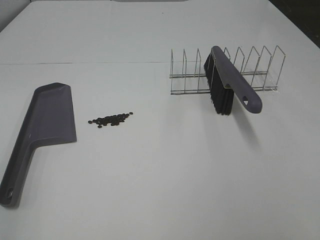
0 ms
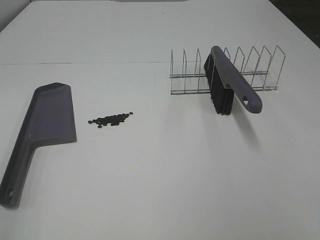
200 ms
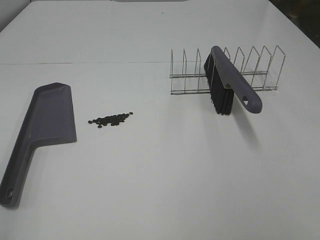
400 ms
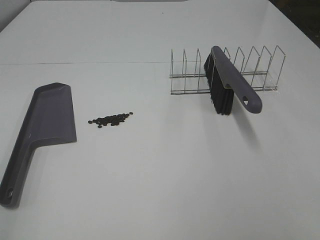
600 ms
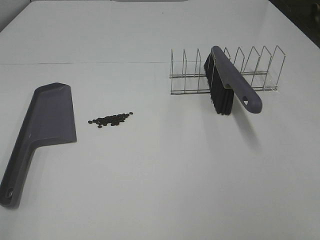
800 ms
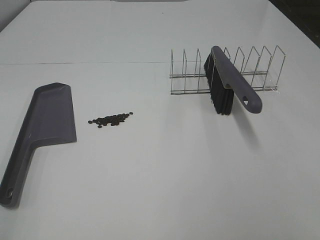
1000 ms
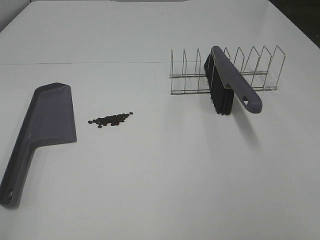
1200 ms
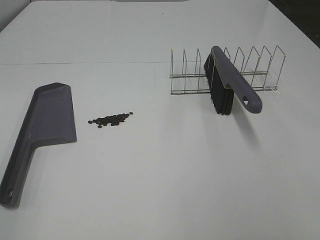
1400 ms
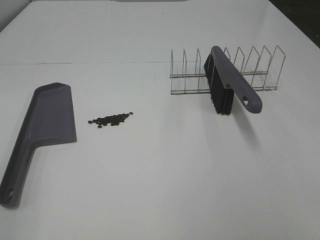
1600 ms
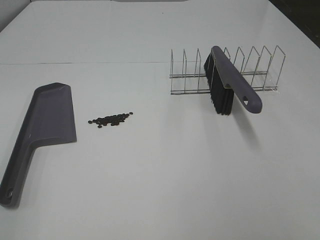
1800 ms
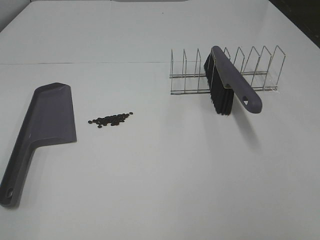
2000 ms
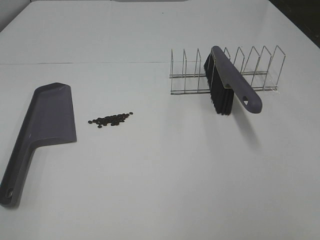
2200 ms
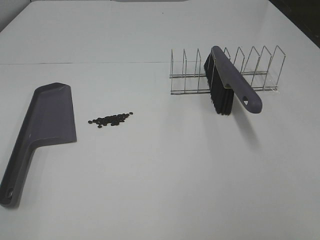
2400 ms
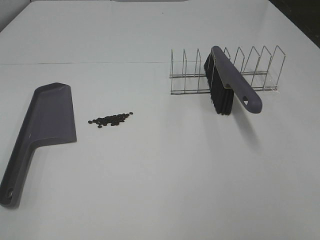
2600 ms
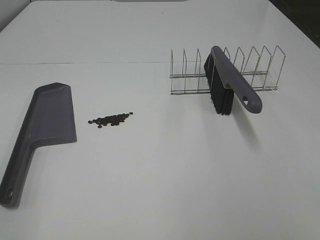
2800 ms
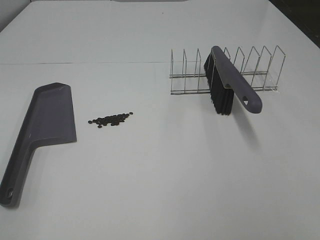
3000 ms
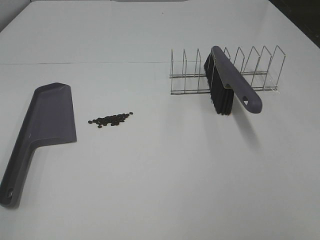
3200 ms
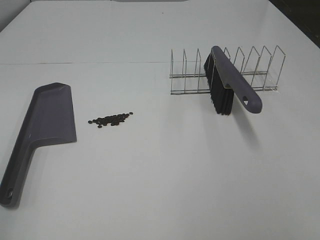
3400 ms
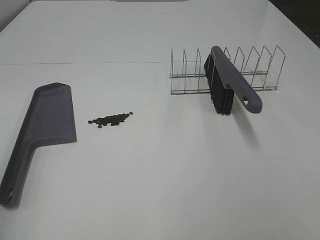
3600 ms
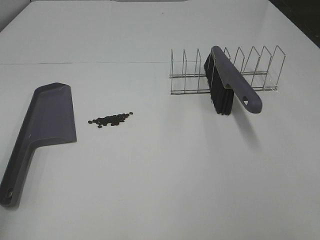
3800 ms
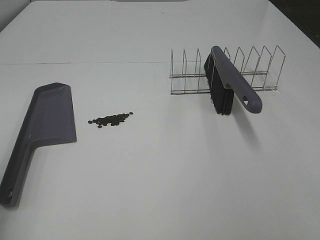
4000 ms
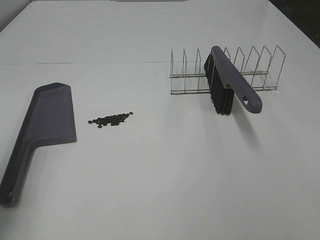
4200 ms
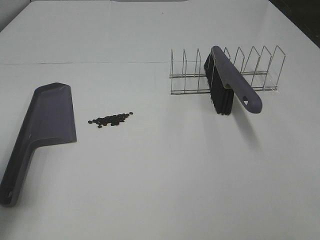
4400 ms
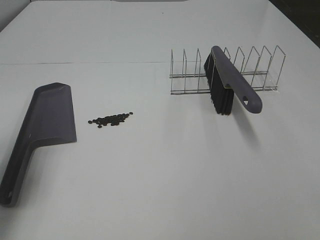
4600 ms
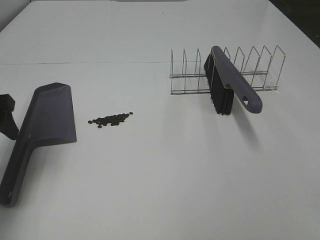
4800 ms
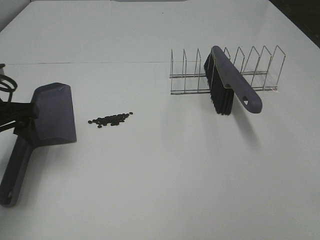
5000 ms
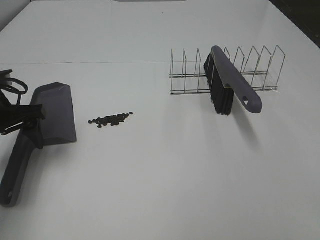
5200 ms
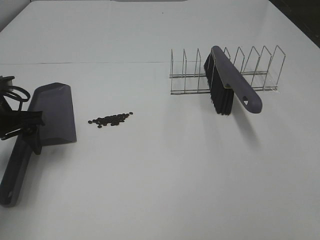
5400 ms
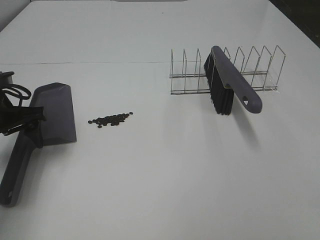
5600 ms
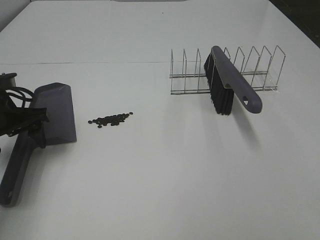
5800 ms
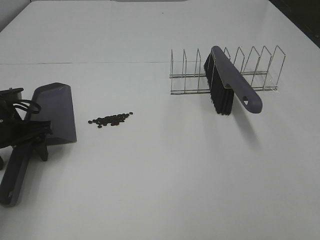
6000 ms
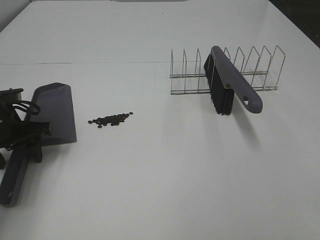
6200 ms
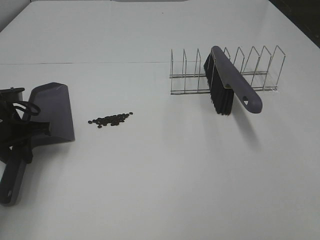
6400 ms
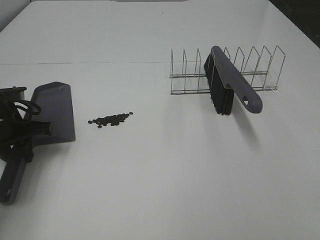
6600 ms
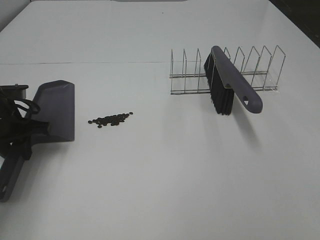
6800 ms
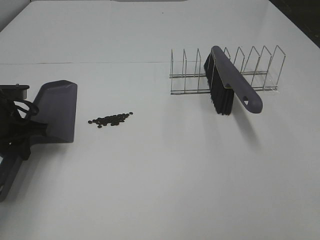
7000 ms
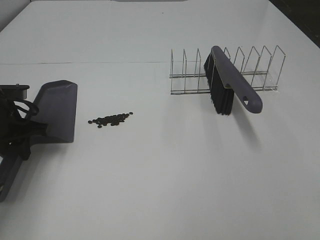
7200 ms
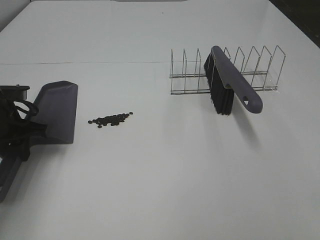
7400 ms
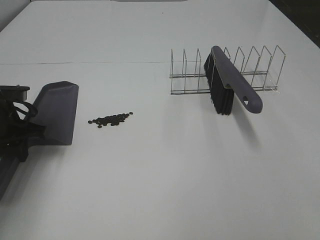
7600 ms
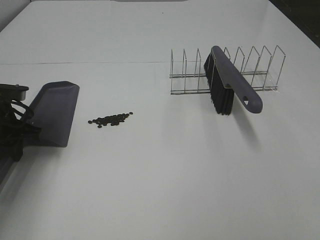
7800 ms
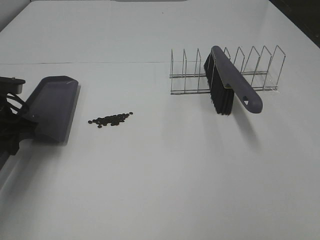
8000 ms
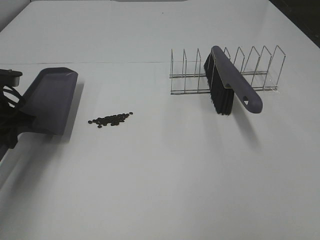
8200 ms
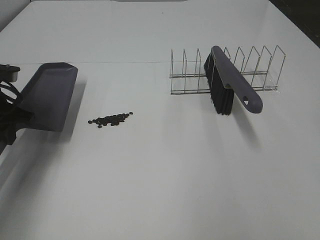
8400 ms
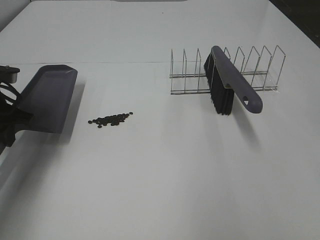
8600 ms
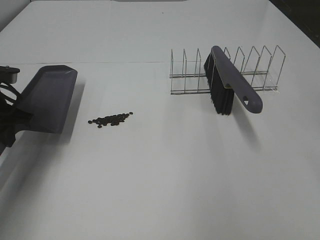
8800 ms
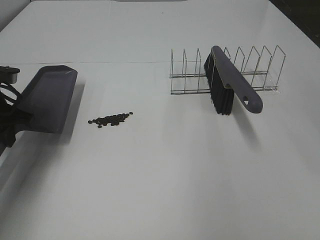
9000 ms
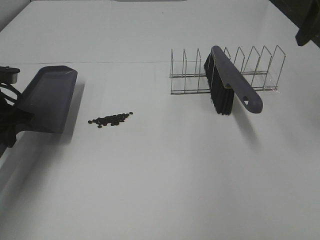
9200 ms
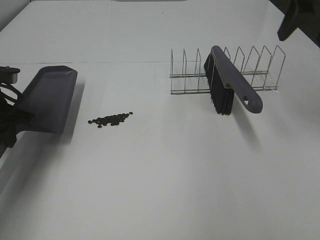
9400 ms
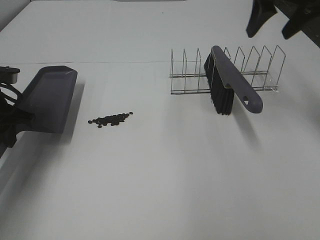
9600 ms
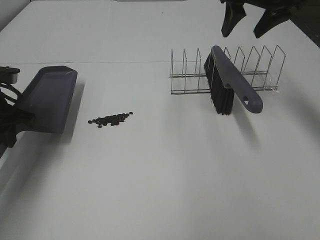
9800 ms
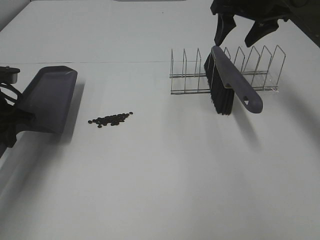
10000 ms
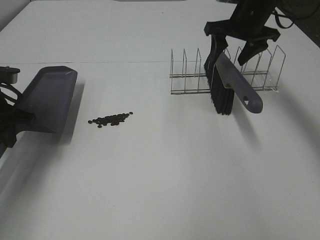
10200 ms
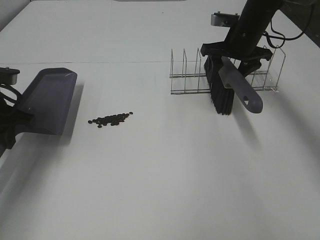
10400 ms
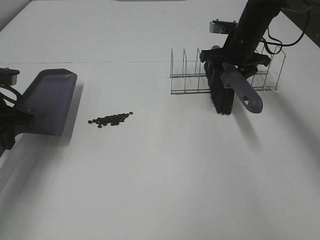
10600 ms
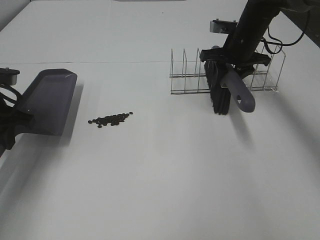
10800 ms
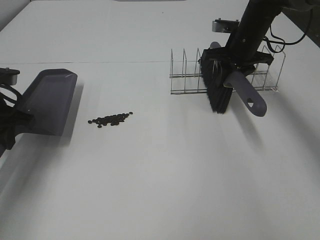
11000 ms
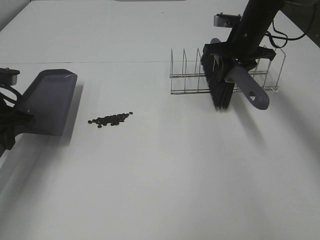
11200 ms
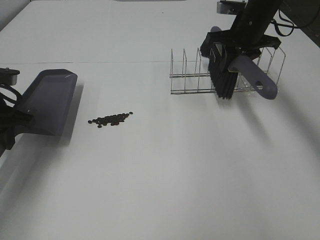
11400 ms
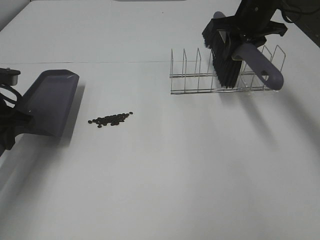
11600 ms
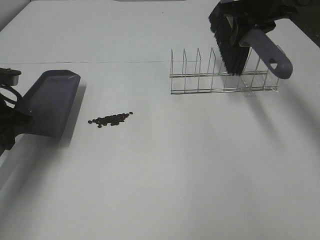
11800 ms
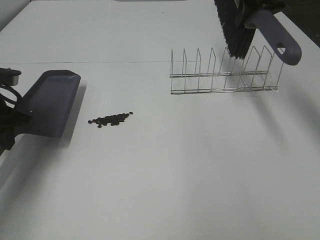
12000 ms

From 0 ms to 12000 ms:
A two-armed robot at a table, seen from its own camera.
Task of the whole recording: Sweep Coffee Bean.
Step, from 0 ms to 6800 ms: Left hand: grab the dustpan.
Step, from 7600 ms to 11400 ms: Right hand:grab the broom.
From 0 ms to 1600 ms: Neither gripper changes place.
From 1600 ms to 3000 ms: Both grippers stay put.
From 3000 ms to 4400 ms: The left gripper moves forward, roughly 20 cm.
From 4400 ms to 6000 ms: The left gripper travels forward and downward by about 20 cm.
From 6000 ms to 7600 ms: The left gripper closes up.
From 9000 ms to 10400 ms: The right gripper shifts some 30 cm forward and downward.
From 10400 ms to 12000 ms: The right gripper heads upward, covering roughly 15 cm, and closes its fingers.

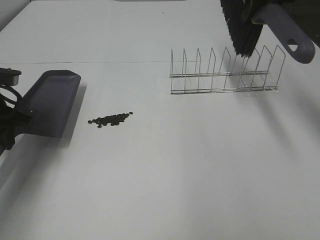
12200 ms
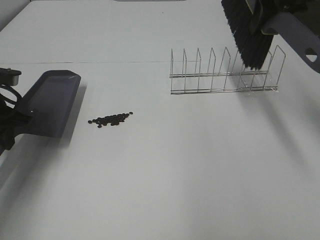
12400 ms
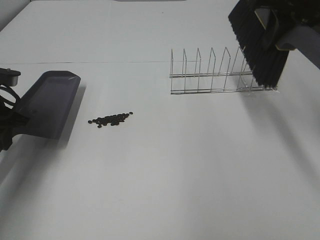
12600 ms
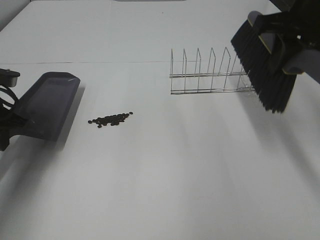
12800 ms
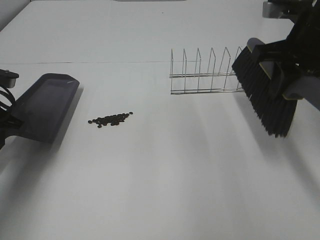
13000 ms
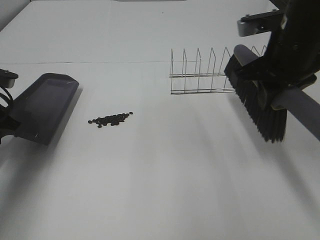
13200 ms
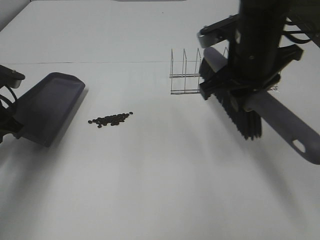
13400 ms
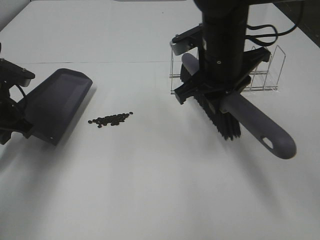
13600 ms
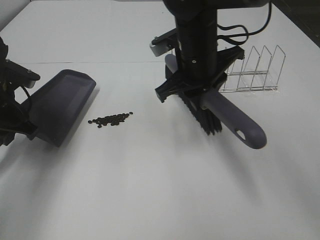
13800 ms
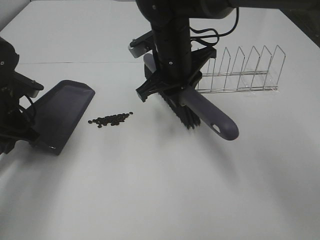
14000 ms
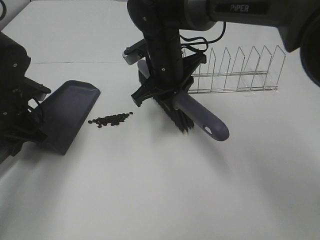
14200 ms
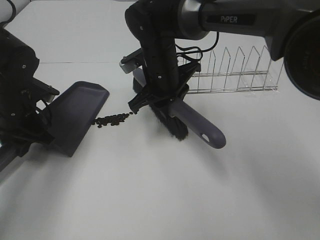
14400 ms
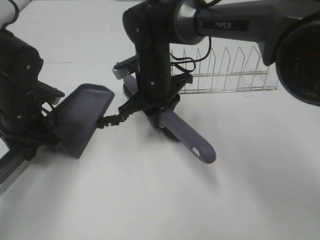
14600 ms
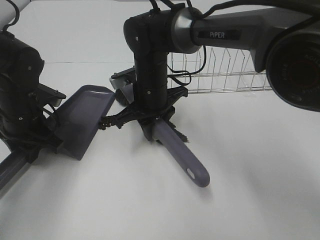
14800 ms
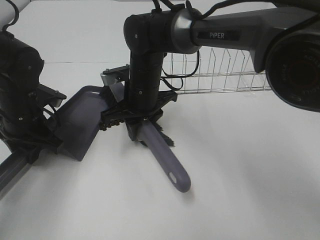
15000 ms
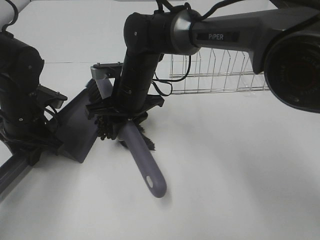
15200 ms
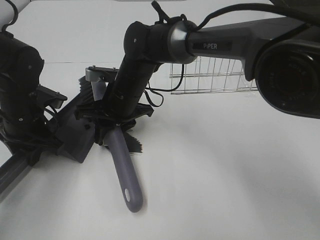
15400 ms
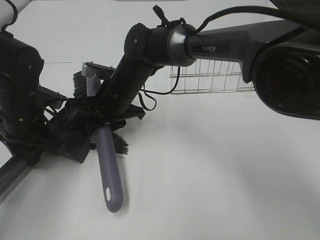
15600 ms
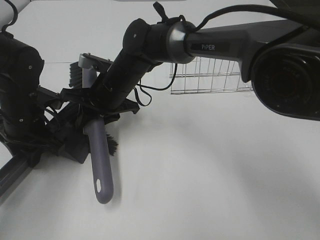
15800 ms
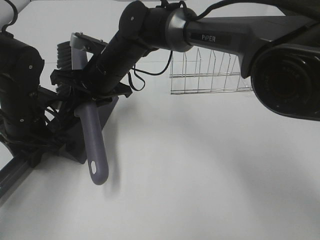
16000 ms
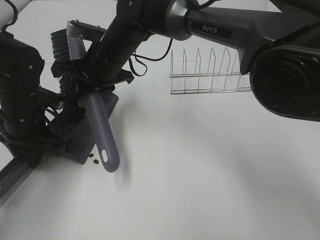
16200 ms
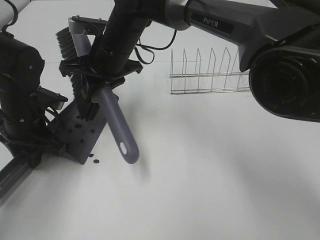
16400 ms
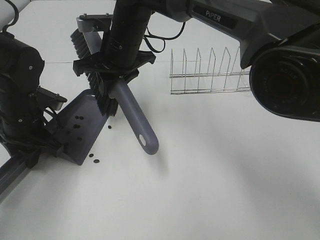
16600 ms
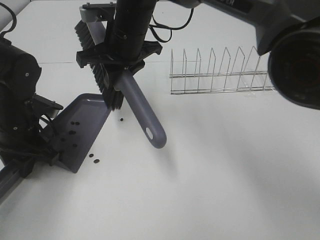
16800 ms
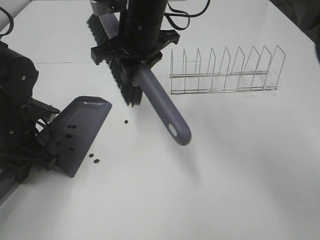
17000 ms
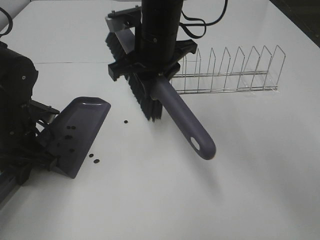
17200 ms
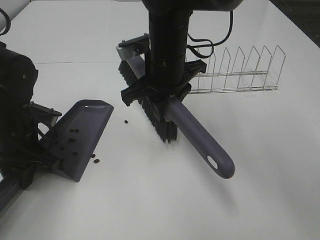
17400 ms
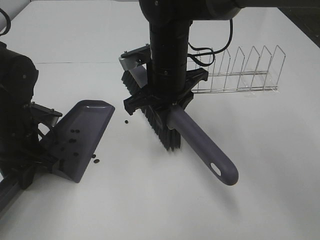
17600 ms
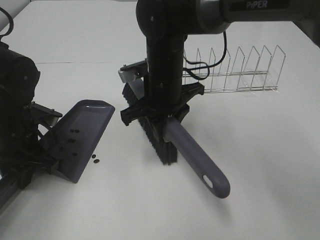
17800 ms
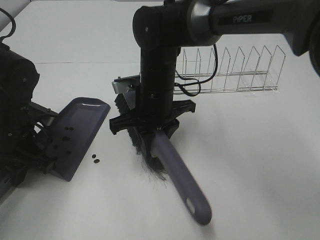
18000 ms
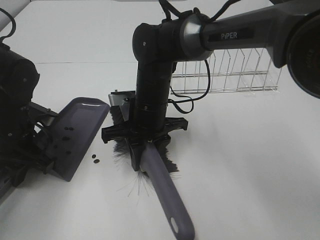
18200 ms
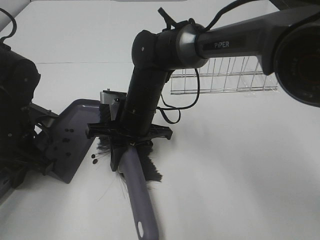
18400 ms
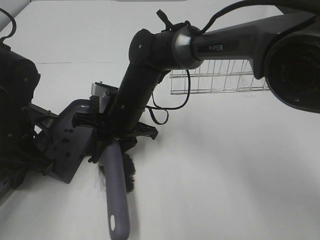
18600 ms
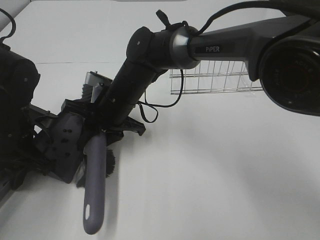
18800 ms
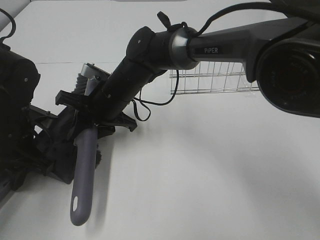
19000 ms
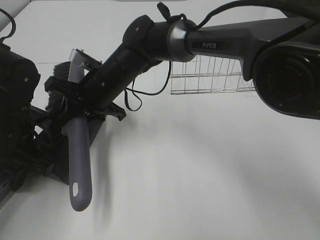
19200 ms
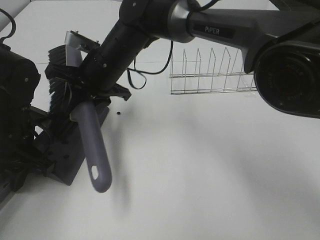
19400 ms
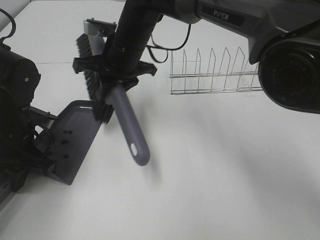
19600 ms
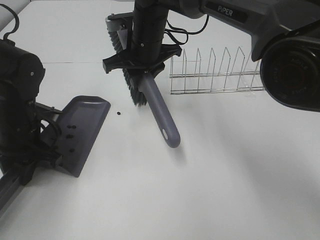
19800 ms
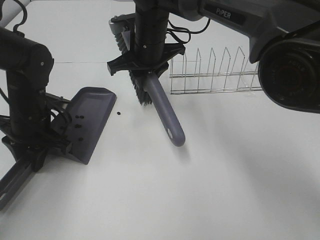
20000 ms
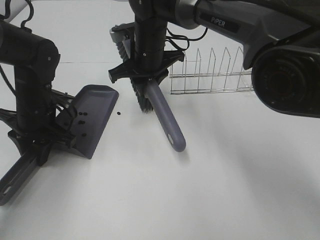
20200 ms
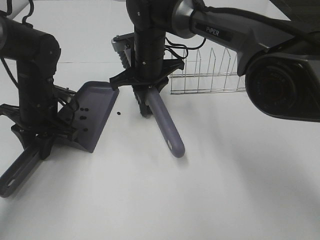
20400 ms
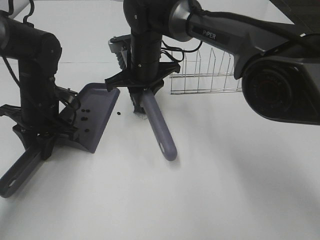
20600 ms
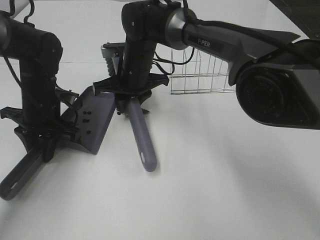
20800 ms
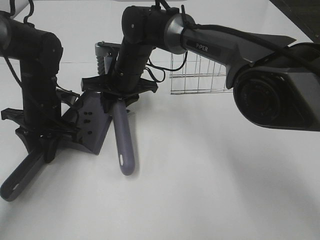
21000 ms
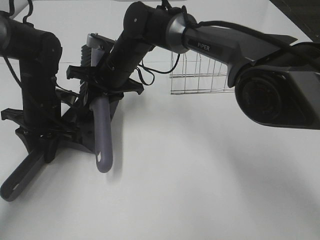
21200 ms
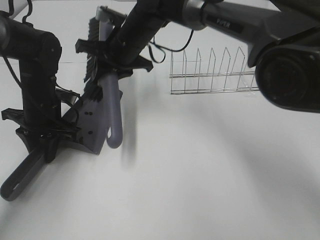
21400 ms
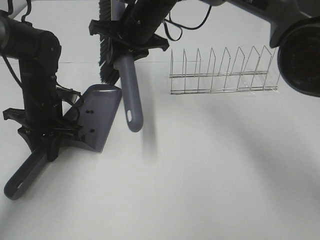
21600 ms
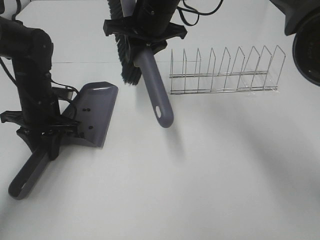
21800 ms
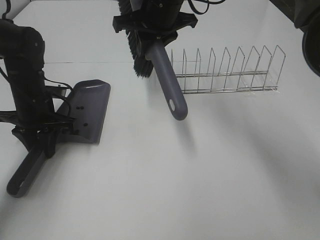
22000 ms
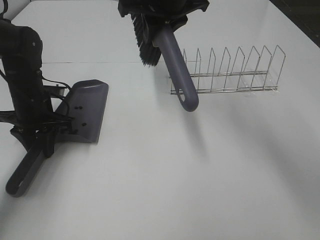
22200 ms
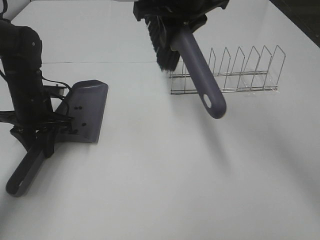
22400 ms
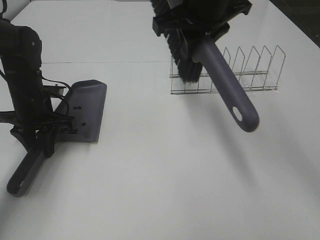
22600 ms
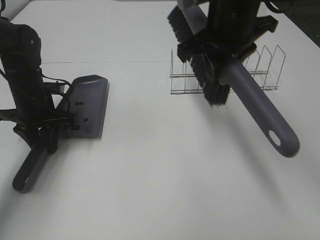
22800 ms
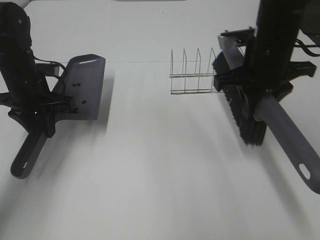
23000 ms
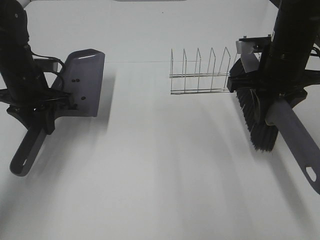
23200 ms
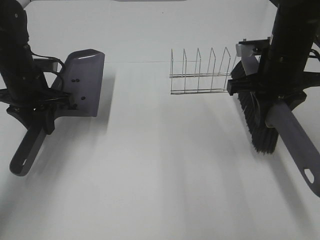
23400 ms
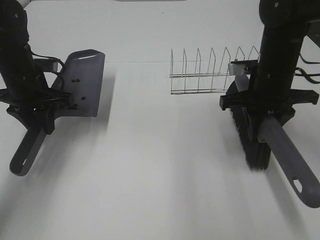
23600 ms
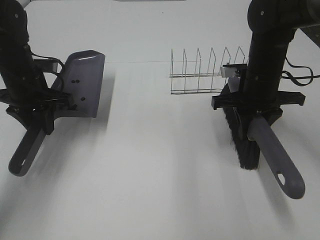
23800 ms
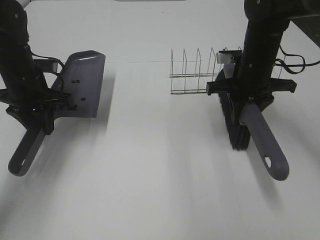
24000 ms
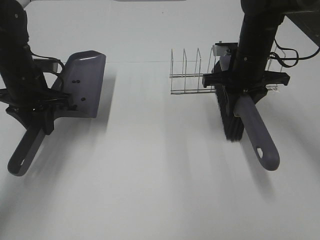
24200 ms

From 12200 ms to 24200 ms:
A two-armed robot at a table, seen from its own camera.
Task of the whole recording: Sweep Coffee Bean.
Step, from 12200 ms to 14200 ms: Left hand: move the dustpan to the left side of the coffee beans.
Step, from 12200 ms to 21400 ms: Right hand:sweep the coffee beans into the dustpan.
From 12200 ms to 13800 ms: The right gripper is displaced to the left, downward and backward by roughly 20 cm.
From 13800 ms to 15200 ms: The left gripper shifts by roughly 5 cm, while the right gripper is displaced to the left and downward by about 15 cm.
From 15200 ms to 16600 ms: The right gripper shifts about 10 cm upward.
From 16600 ms to 18200 ms: The right gripper goes approximately 10 cm downward and backward.
From 18200 ms to 19800 ms: The right gripper travels forward and upward by some 15 cm.
From 19800 ms to 21200 ms: The right gripper is displaced downward by approximately 5 cm. Meanwhile the left gripper is displaced forward by about 5 cm.
From 21200 ms to 22600 ms: The right gripper heads upward, to the right and backward, covering approximately 20 cm.
From 22600 ms to 24200 ms: The left gripper shifts about 5 cm upward. Meanwhile the right gripper moves downward and to the right, some 15 cm.
